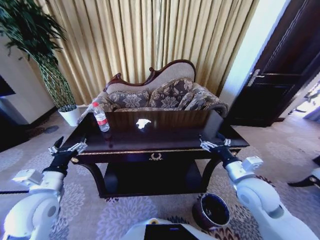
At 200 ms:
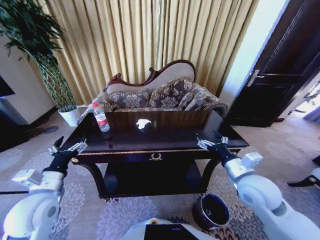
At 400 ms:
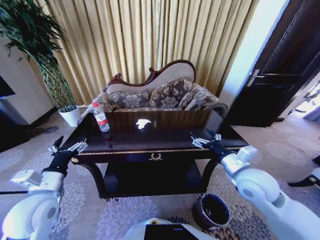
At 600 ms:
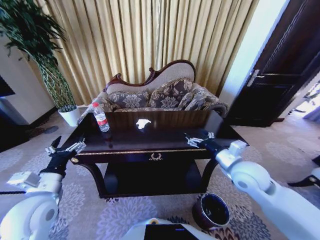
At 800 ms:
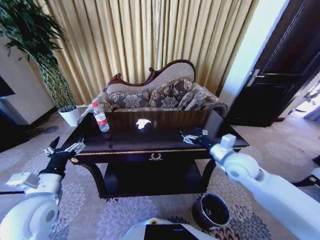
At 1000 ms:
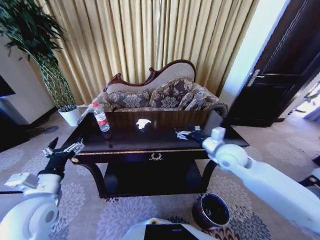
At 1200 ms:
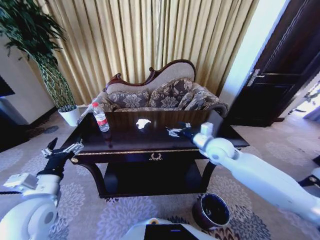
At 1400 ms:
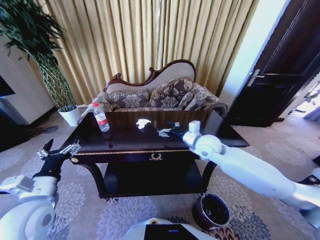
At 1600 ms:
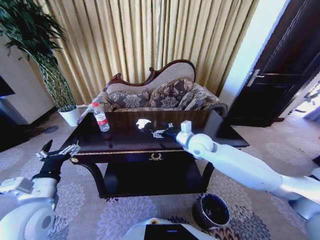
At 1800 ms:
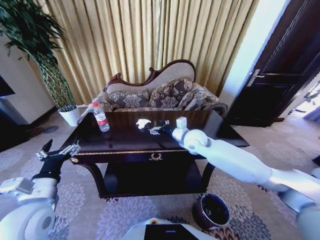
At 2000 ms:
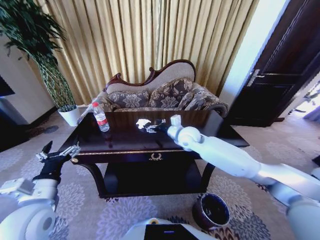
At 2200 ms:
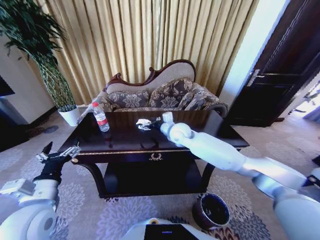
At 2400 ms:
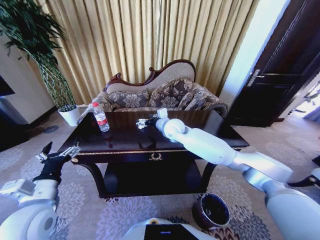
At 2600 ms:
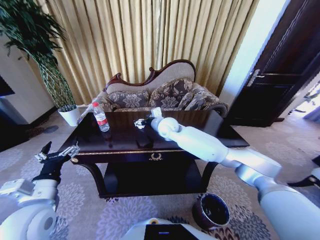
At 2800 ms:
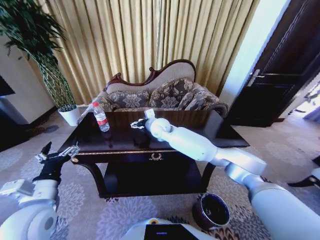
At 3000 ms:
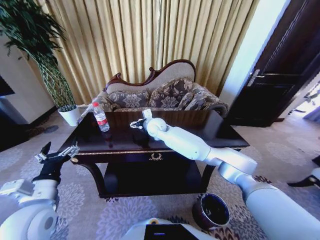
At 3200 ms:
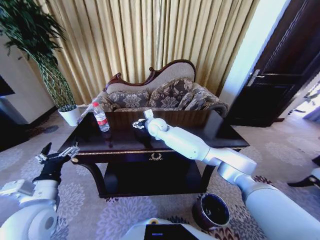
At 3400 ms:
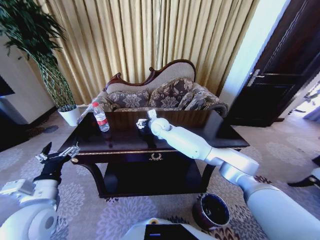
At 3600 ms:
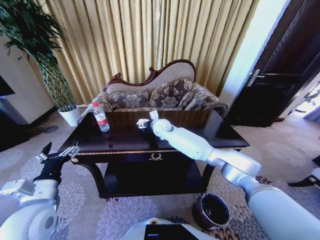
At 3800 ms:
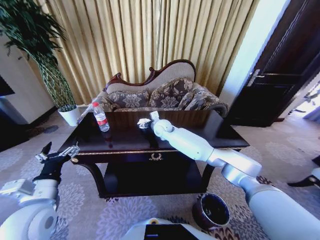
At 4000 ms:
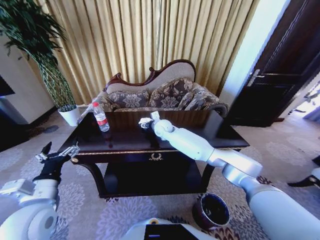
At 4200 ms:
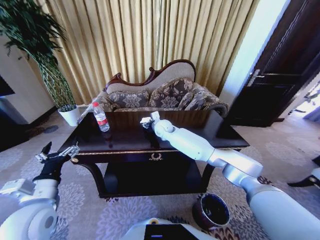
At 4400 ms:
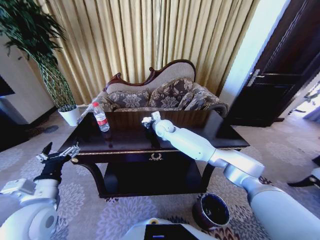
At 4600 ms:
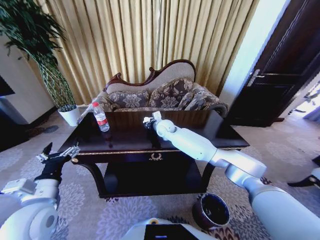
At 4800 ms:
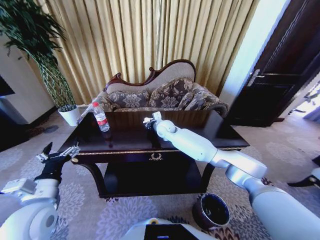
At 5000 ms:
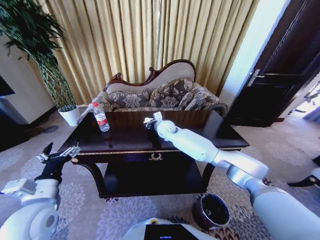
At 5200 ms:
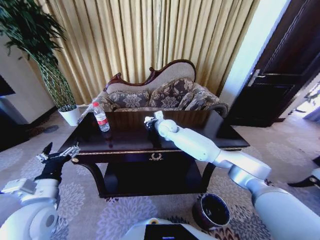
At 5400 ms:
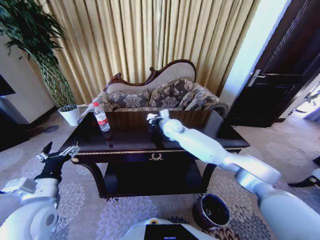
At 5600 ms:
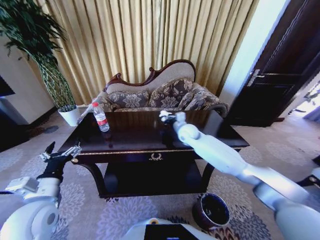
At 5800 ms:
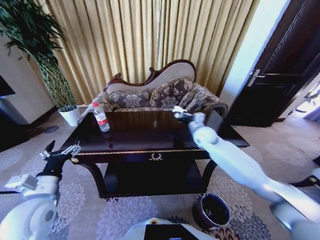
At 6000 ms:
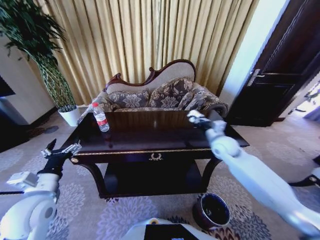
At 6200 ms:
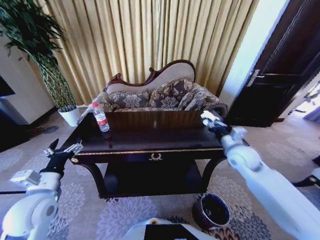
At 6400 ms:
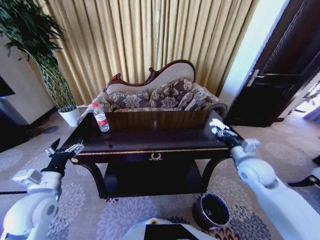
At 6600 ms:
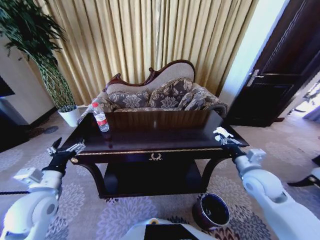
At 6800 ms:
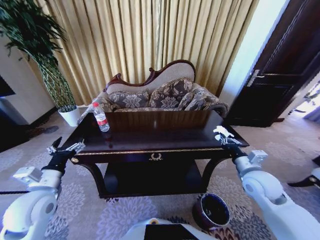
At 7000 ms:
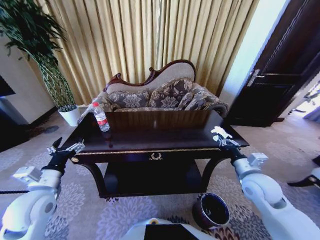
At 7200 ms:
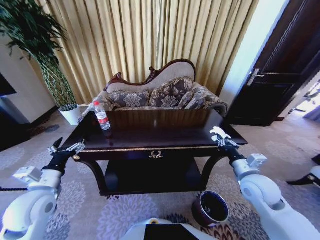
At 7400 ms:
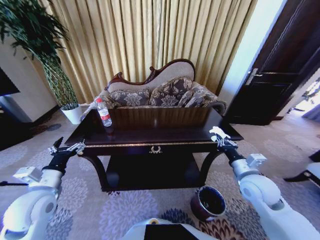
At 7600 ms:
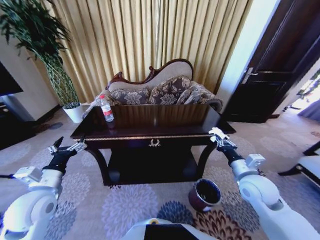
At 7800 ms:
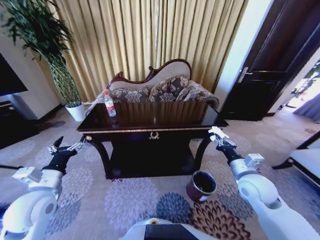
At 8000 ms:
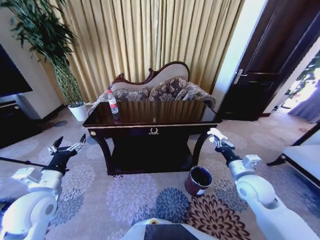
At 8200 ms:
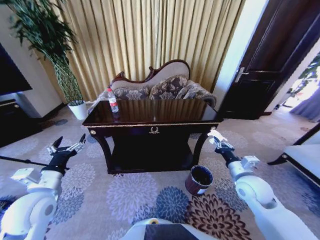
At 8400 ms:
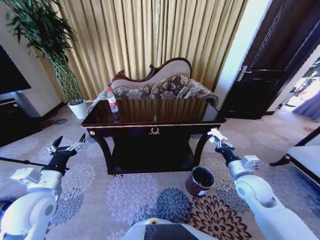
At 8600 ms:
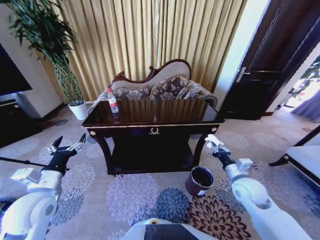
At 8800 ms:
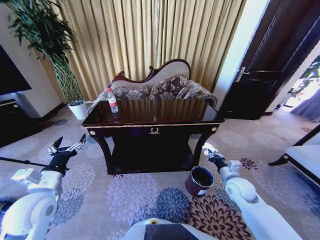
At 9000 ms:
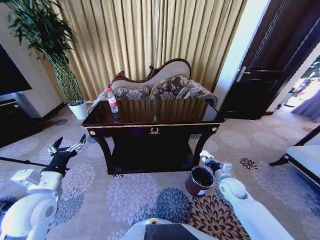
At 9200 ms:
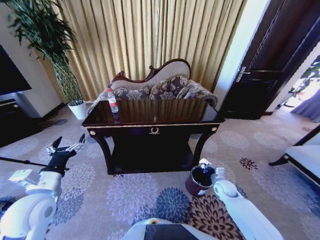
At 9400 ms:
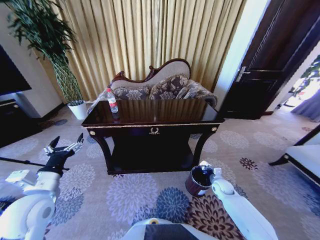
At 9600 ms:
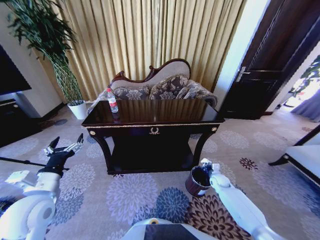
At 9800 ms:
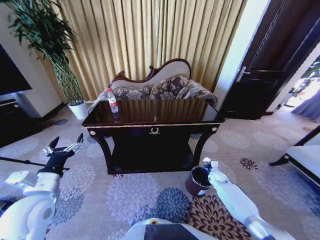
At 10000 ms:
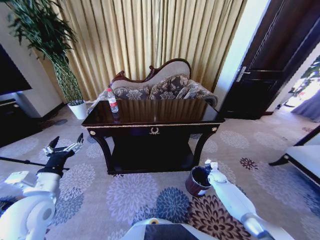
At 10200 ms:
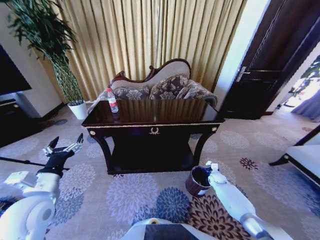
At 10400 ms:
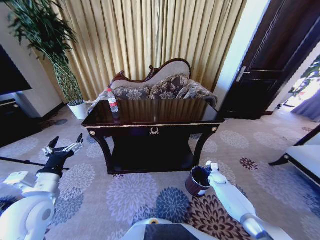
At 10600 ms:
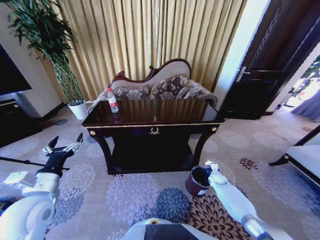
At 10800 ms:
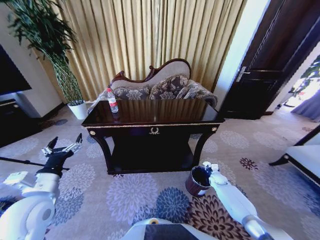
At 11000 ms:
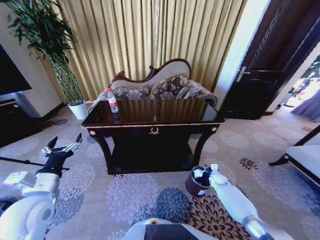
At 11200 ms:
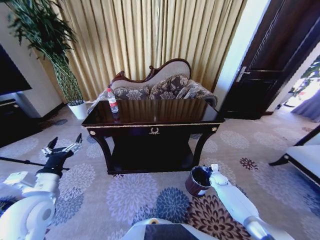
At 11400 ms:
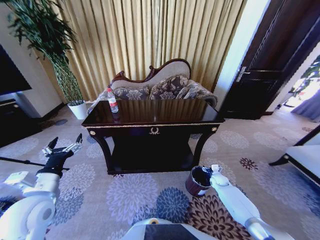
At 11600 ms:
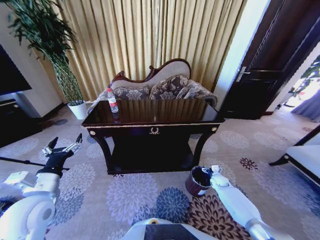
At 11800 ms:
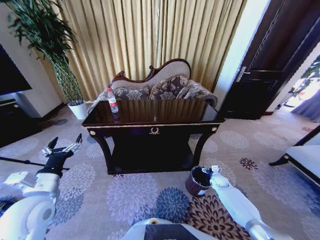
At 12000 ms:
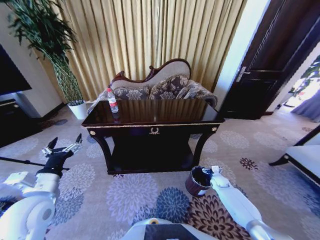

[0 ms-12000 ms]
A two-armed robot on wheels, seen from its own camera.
Task of the whole recording: Move to the front of the table and place the trash on the table into the trash bin.
0 ms to 1600 ms: The right gripper shifts roughly 20 cm forward and to the left.
1600 ms to 3000 ms: The right gripper goes approximately 20 cm to the left and forward.
3000 ms to 4400 ms: The right gripper moves approximately 5 cm, and closes up.
4400 ms to 6000 ms: The right gripper goes about 30 cm to the right and backward, and closes.
6000 ms to 7600 ms: The right gripper goes some 15 cm backward.
7600 ms to 9000 ms: The right gripper is displaced downward by some 15 cm.
9000 ms to 10400 ms: The right gripper goes about 20 cm downward and forward.
10400 ms to 12000 ms: The right gripper opens.

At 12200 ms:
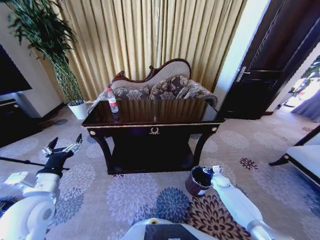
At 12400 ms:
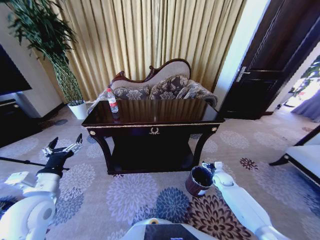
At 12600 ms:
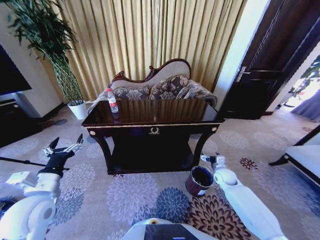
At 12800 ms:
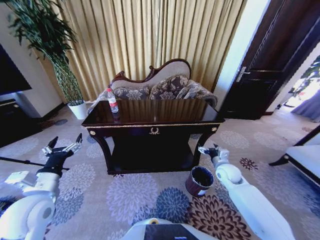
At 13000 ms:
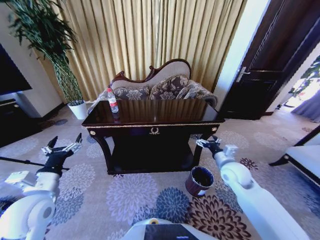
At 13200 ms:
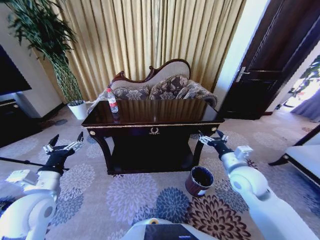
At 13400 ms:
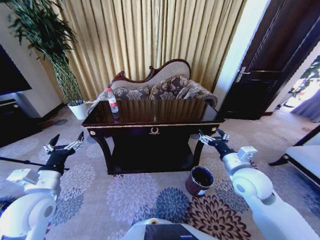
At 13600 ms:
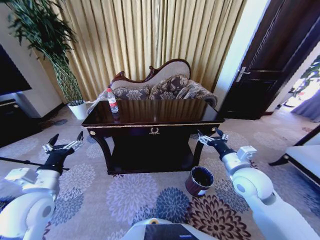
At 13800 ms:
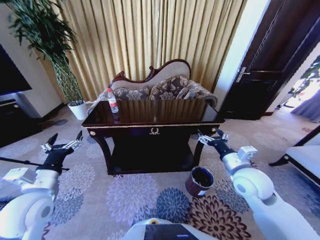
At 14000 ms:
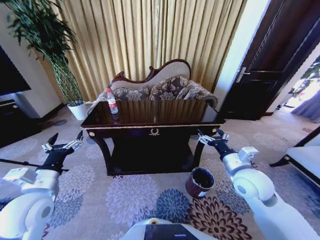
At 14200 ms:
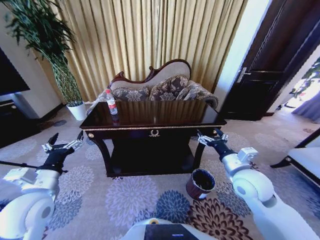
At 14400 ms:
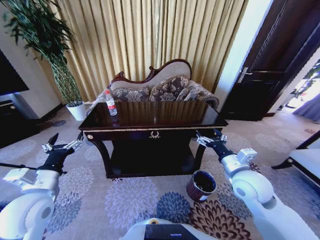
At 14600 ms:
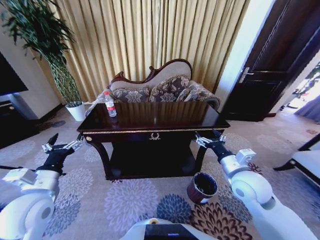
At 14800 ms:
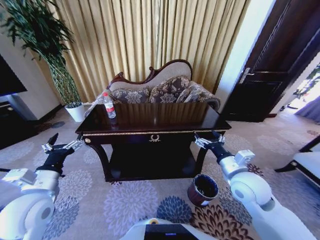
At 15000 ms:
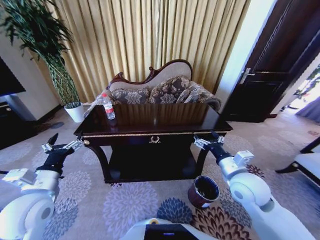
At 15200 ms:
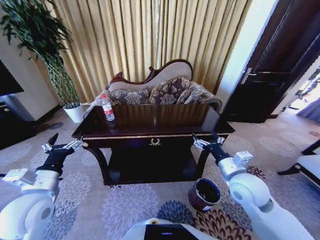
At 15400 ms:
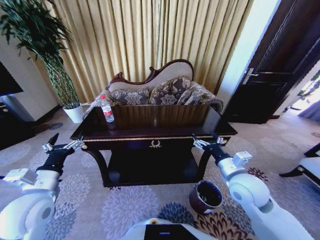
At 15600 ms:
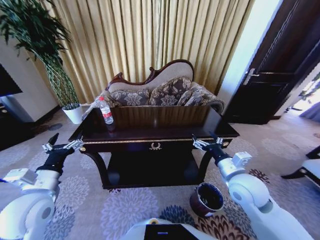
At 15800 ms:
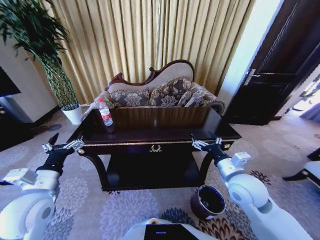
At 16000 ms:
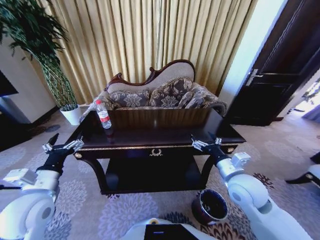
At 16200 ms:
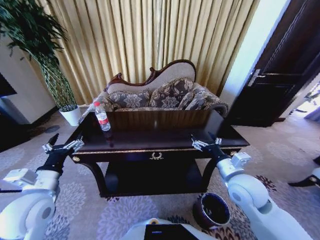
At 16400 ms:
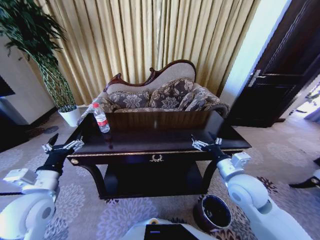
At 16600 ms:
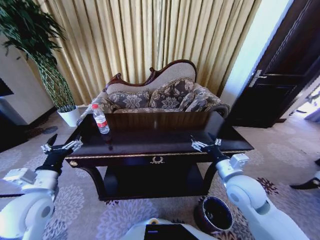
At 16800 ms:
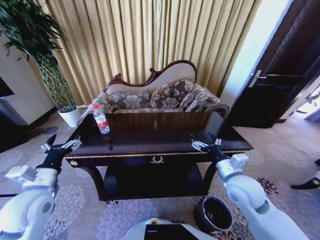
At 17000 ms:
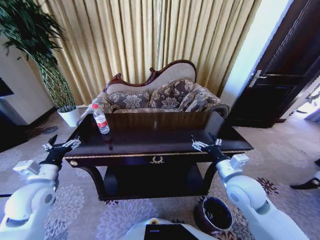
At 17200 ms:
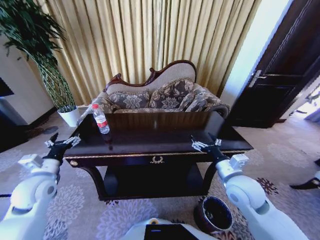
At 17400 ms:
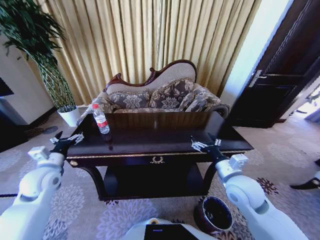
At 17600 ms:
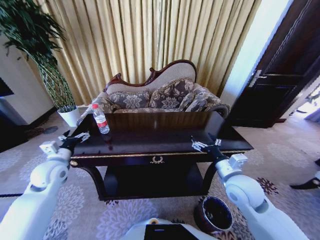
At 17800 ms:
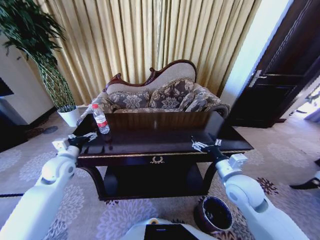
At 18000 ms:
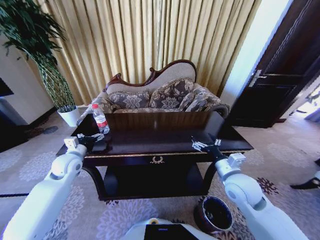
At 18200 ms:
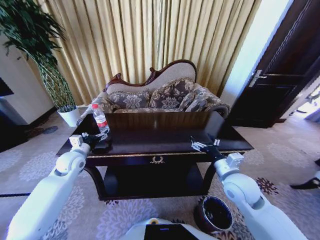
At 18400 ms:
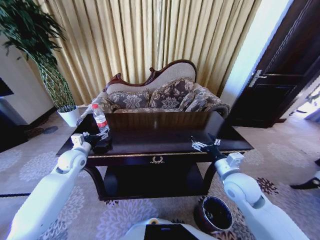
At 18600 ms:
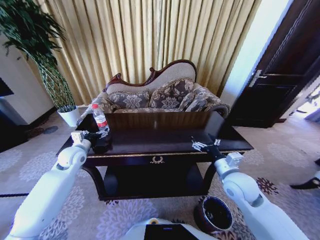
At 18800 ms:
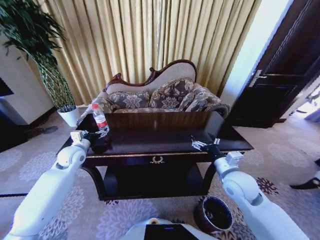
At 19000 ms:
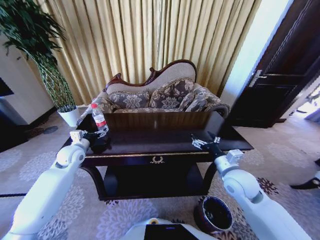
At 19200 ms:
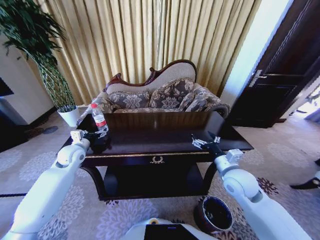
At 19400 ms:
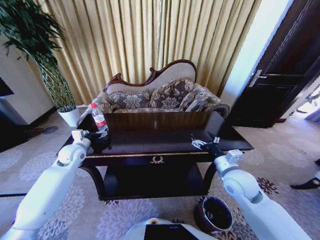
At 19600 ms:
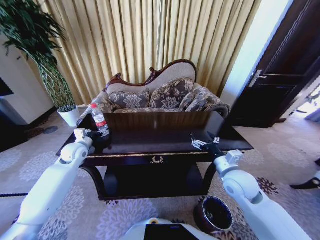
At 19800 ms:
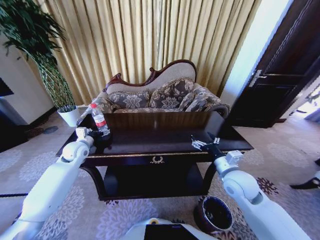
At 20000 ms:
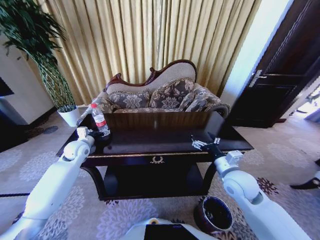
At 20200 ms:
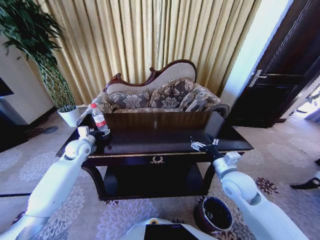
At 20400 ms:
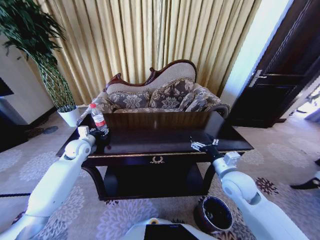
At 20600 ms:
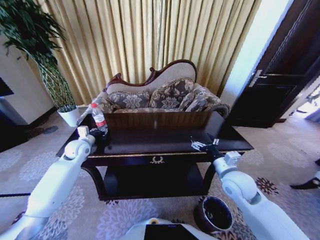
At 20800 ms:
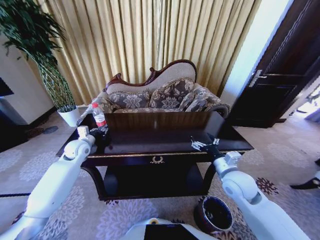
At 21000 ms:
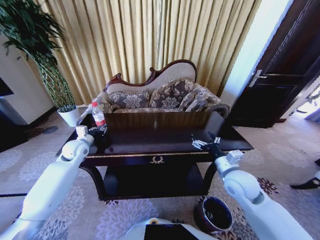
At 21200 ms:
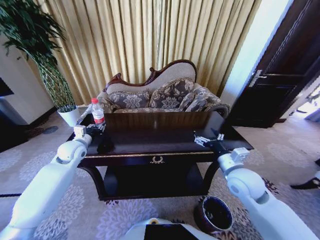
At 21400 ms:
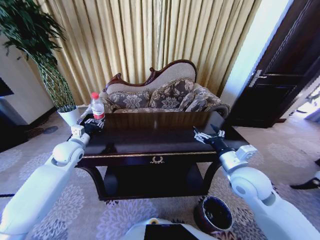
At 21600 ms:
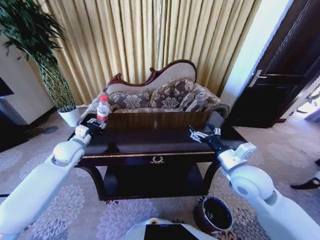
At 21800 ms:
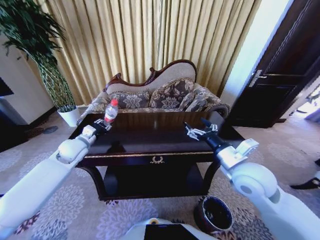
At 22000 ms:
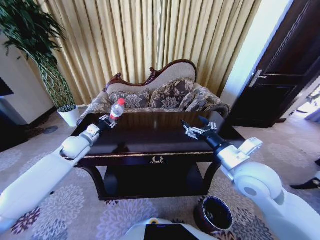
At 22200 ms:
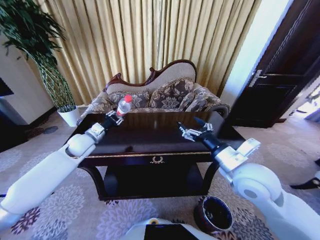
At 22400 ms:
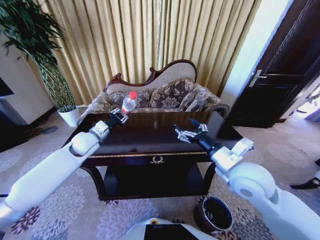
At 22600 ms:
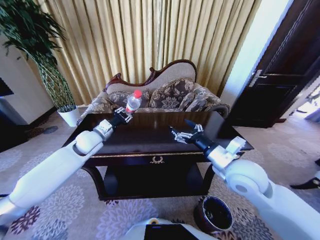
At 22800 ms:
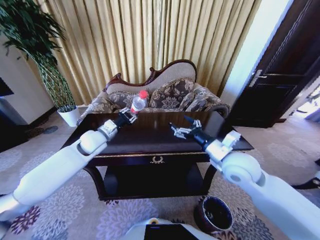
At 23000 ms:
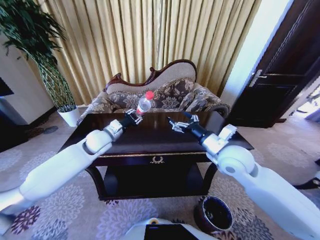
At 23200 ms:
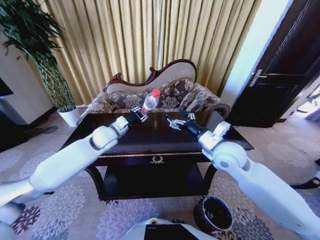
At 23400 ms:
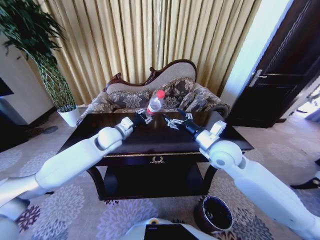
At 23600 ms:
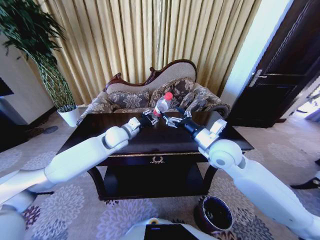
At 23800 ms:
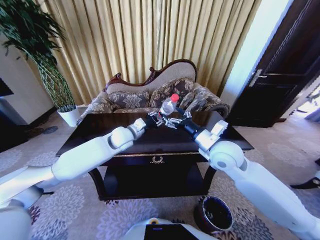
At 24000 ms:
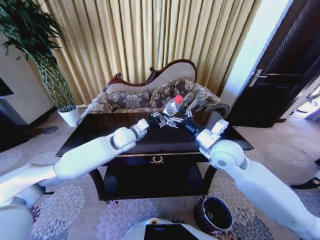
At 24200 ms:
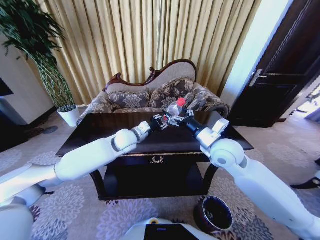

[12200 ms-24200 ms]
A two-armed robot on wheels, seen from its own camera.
Task of the whole recording: Move to the front of the table and place the trash on the table into the trash bin.
12200 ms to 13800 ms: The right gripper moves upward, some 30 cm.
16600 ms to 18200 ms: The left gripper heads forward, covering about 20 cm.
18200 ms to 19800 ms: The left gripper shifts some 5 cm forward.
19800 ms to 21200 ms: The left gripper closes up.
21200 ms to 22600 ms: The left gripper shifts approximately 10 cm to the right, while the right gripper goes some 5 cm upward.
22600 ms to 24200 ms: The left gripper goes some 15 cm to the right; the right gripper heads forward, covering some 10 cm.
